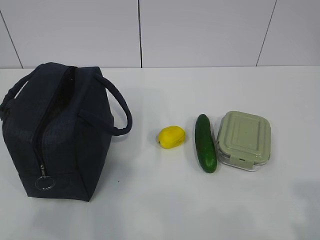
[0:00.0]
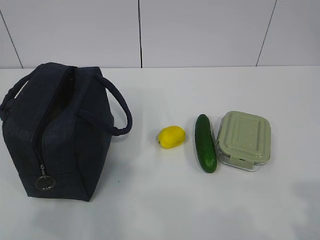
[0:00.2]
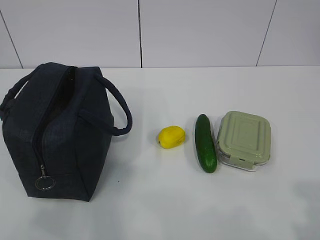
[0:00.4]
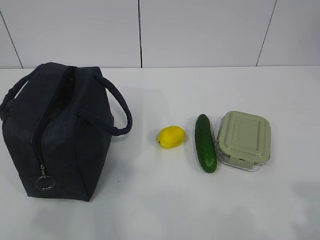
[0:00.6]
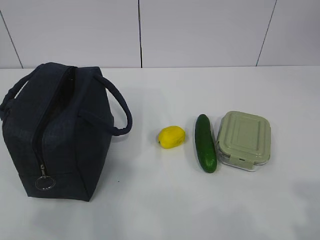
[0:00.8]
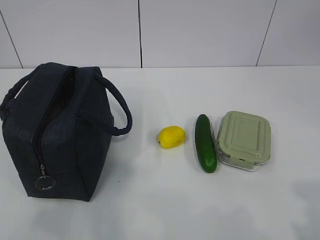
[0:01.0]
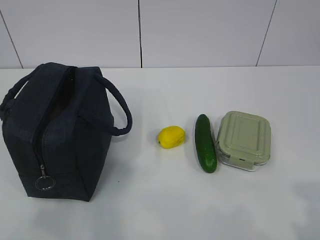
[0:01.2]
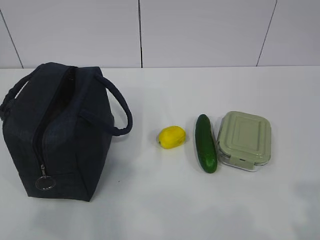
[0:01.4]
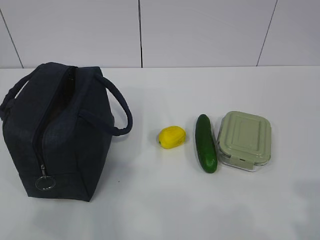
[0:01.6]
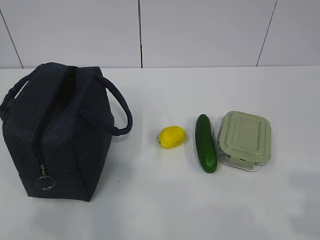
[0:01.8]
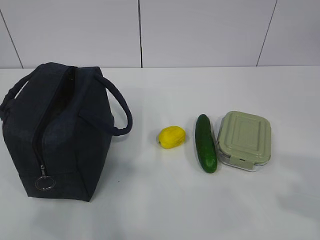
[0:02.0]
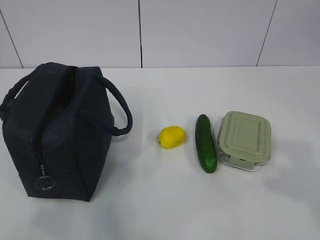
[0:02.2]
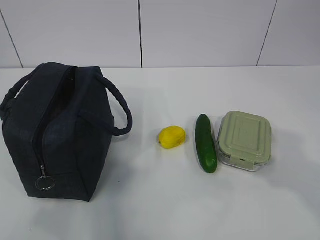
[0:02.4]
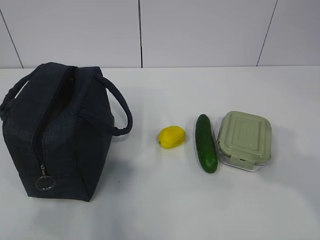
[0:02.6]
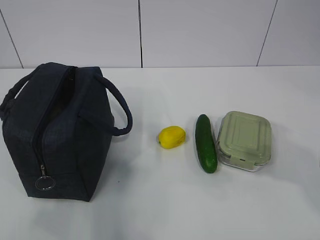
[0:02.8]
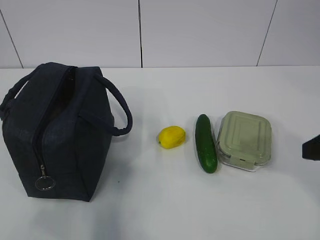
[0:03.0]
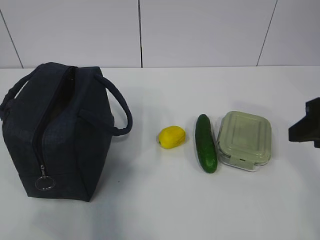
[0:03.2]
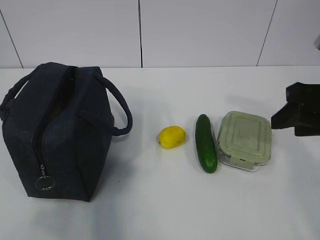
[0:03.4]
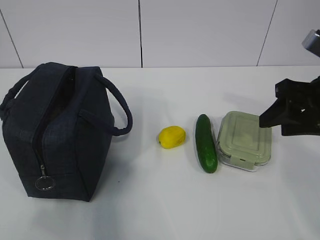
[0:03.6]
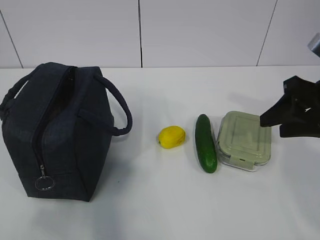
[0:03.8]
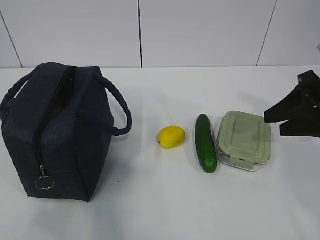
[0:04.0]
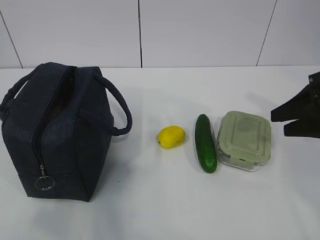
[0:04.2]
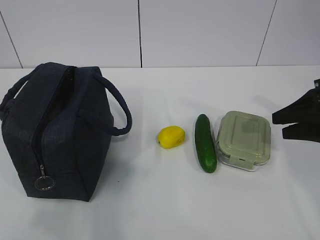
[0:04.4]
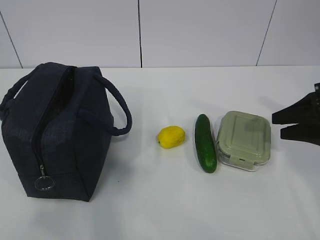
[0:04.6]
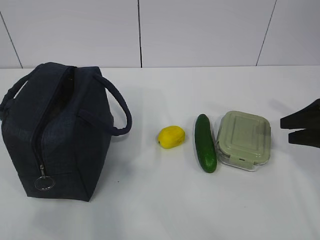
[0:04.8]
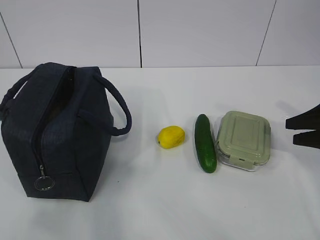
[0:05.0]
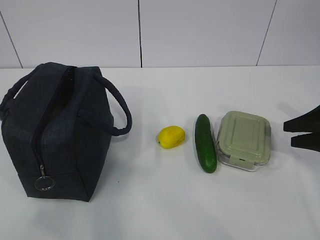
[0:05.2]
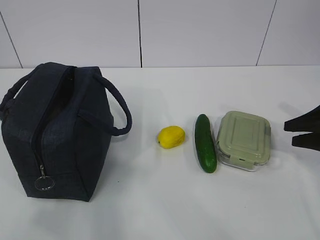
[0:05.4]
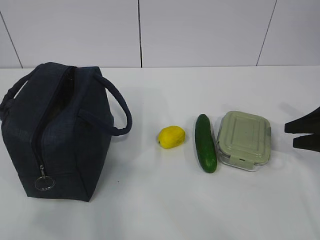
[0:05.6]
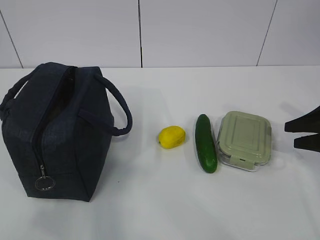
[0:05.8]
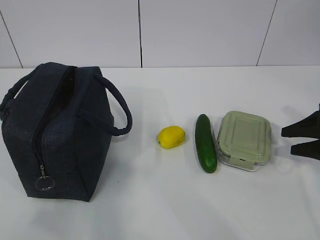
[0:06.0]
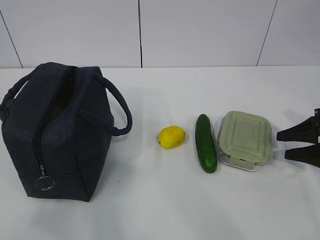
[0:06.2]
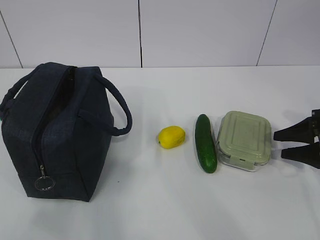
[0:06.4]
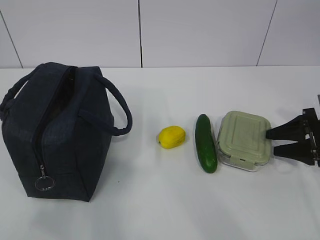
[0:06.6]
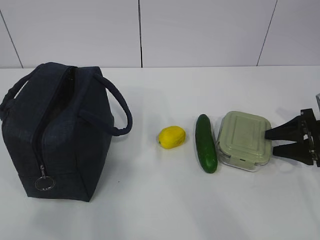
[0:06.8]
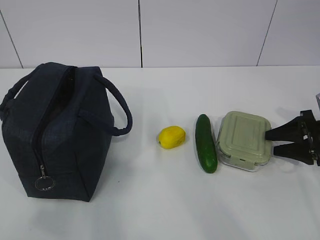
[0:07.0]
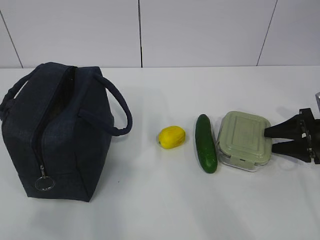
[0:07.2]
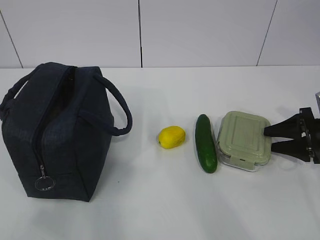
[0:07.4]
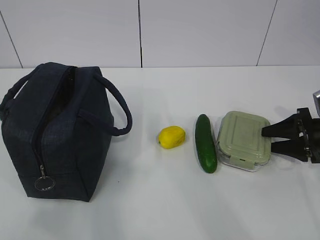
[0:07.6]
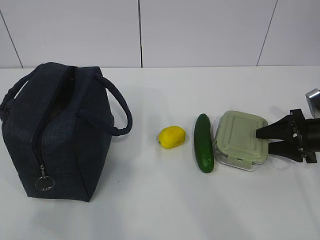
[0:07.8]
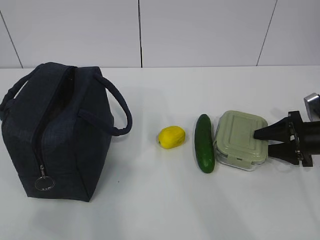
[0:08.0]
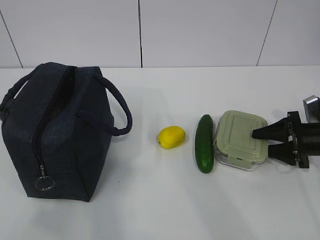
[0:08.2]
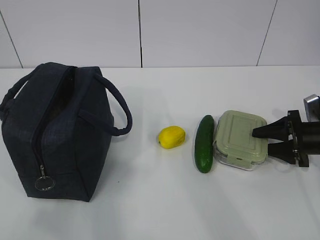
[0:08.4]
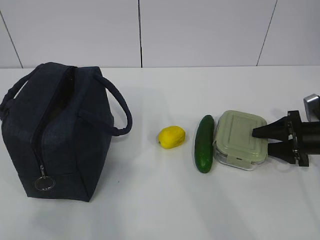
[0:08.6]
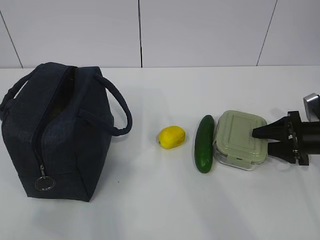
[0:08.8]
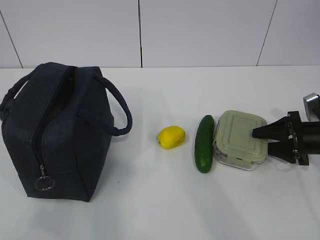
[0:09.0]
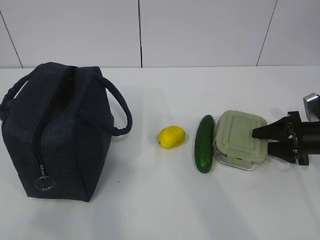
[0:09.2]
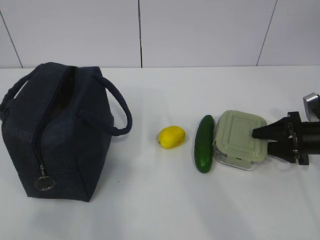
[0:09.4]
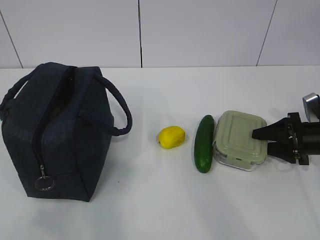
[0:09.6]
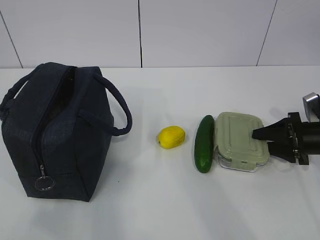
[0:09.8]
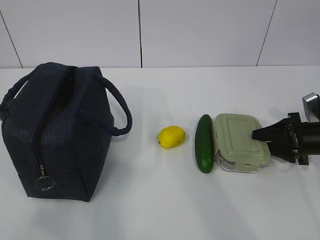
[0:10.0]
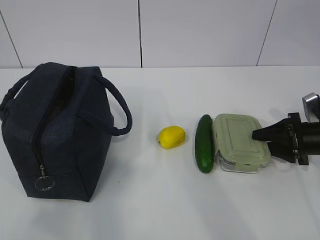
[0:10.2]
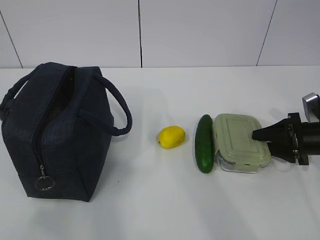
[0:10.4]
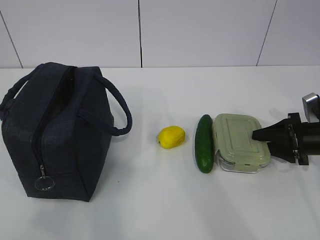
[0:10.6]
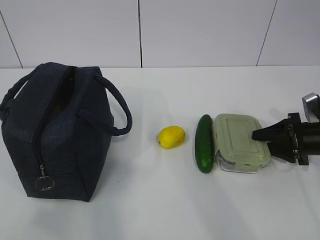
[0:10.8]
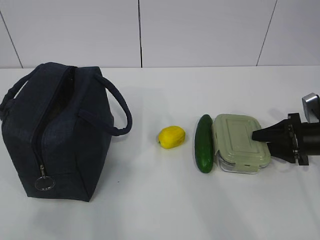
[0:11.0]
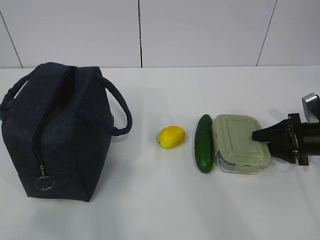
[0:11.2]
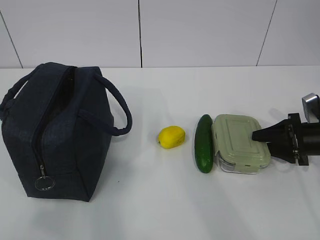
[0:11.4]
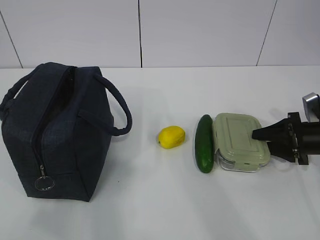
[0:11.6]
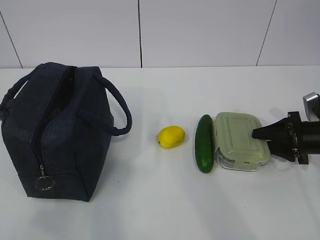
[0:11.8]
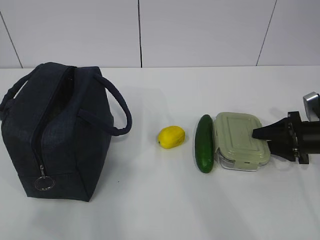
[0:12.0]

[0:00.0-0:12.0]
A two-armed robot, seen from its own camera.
Step, 0:00.0 to 0:11.0: Grab the lunch box with your right hand.
0:01.6 to 0:03.0: The right gripper shifts approximately 20 cm forward.
0:03.0 to 0:04.4: The right gripper heads forward, to the right and downward, covering about 15 cm.
0:04.4 to 0:06.0: The right gripper is displaced downward and to the right by some 10 cm.
0:06.0 to 0:07.6: The right gripper moves approximately 5 cm.
0:07.6 to 0:09.0: There are only small adjustments of the grippers.
0:09.0 to 0:12.0: Both grippers stay about where they are.

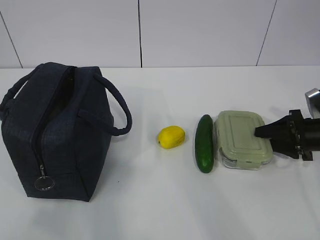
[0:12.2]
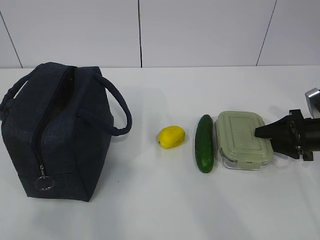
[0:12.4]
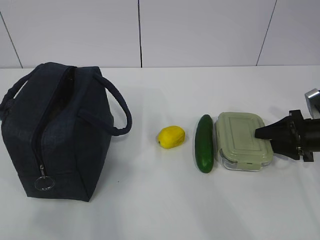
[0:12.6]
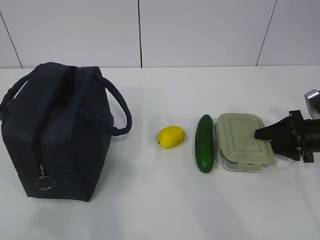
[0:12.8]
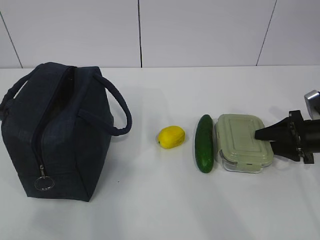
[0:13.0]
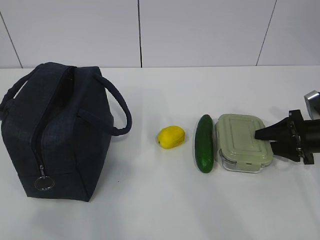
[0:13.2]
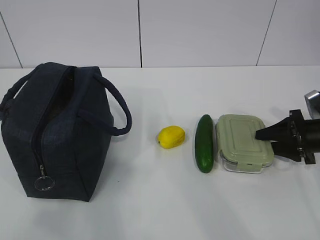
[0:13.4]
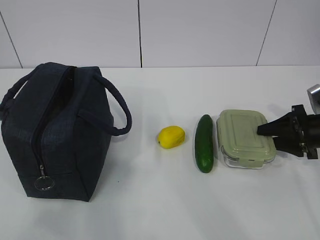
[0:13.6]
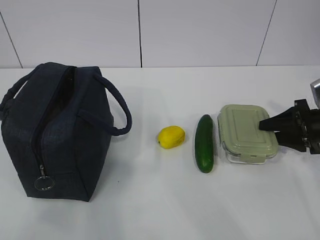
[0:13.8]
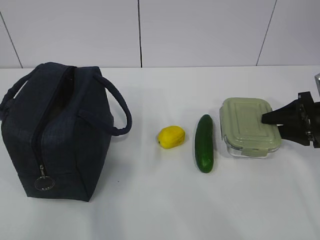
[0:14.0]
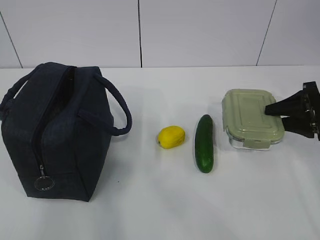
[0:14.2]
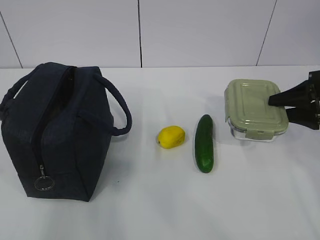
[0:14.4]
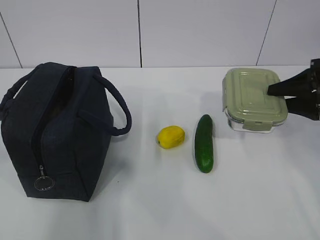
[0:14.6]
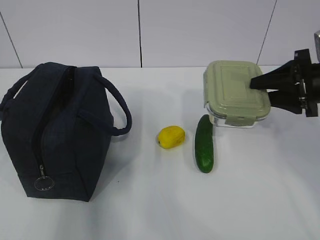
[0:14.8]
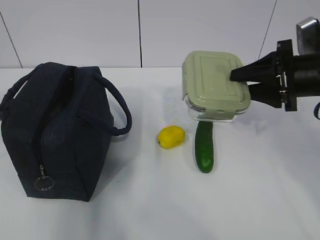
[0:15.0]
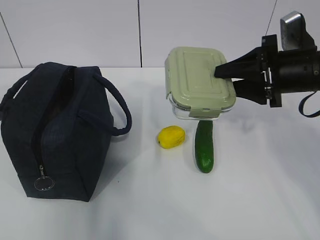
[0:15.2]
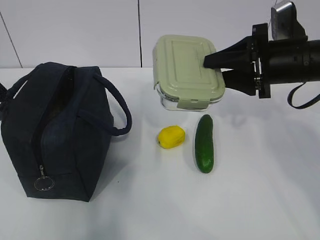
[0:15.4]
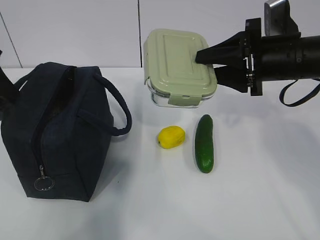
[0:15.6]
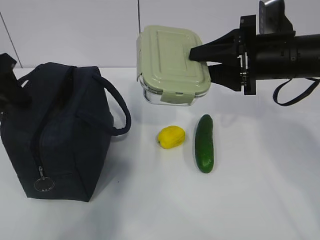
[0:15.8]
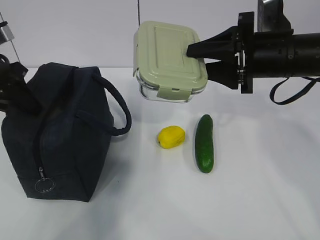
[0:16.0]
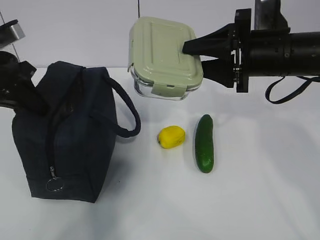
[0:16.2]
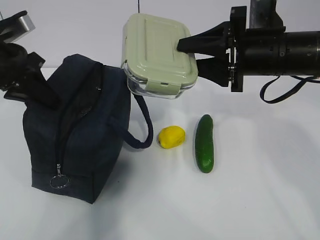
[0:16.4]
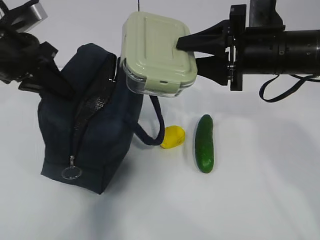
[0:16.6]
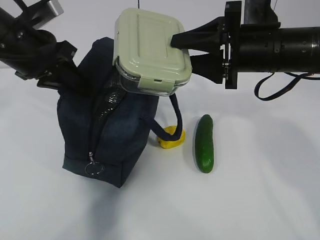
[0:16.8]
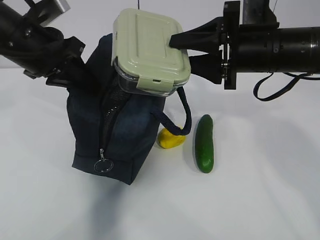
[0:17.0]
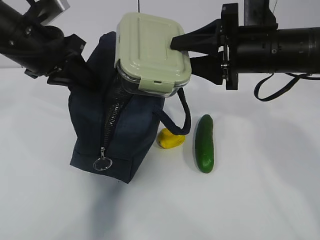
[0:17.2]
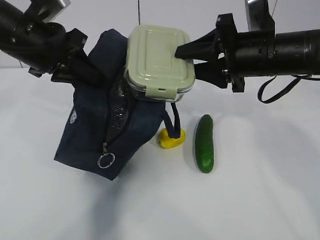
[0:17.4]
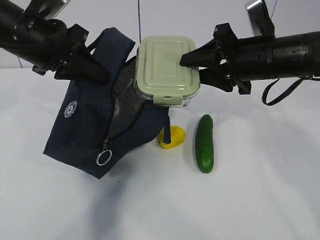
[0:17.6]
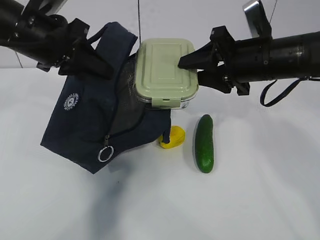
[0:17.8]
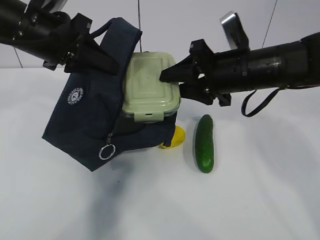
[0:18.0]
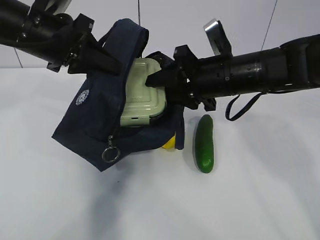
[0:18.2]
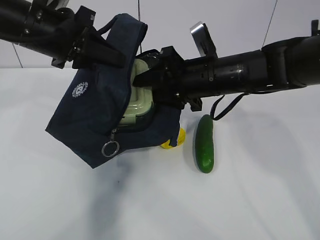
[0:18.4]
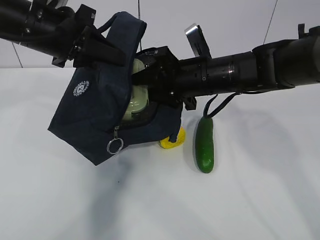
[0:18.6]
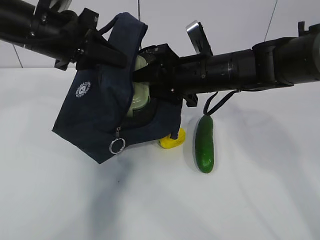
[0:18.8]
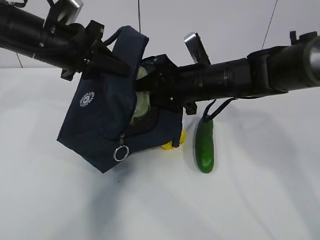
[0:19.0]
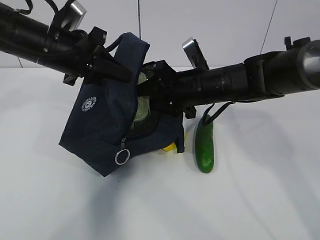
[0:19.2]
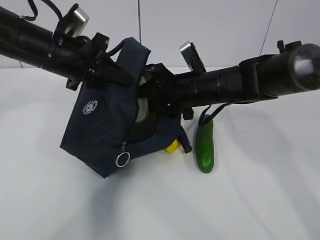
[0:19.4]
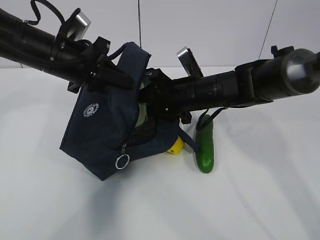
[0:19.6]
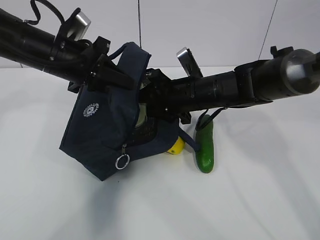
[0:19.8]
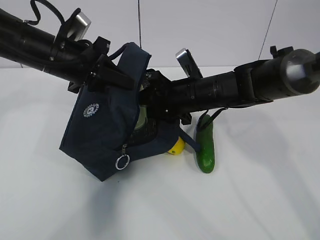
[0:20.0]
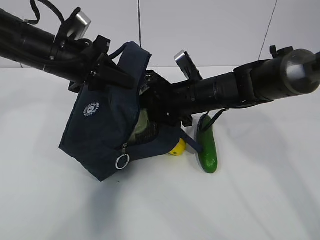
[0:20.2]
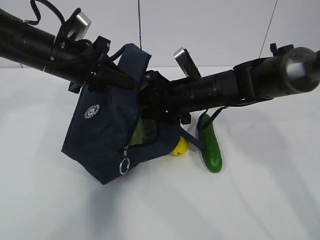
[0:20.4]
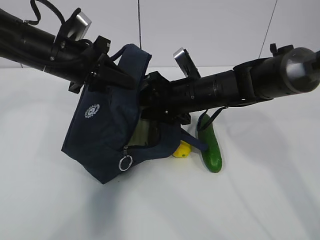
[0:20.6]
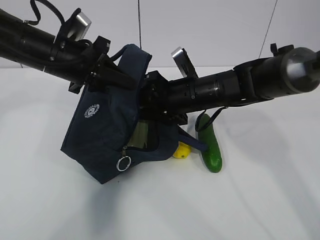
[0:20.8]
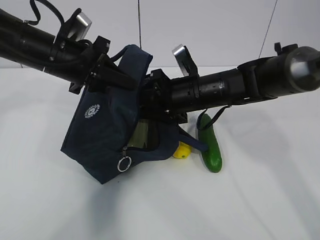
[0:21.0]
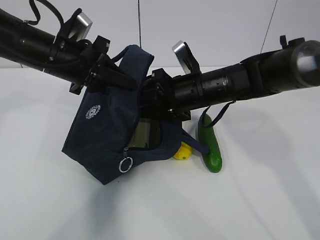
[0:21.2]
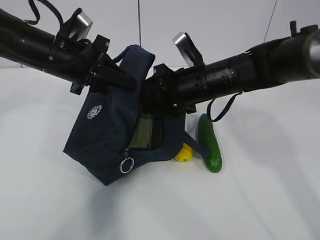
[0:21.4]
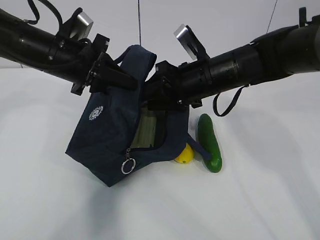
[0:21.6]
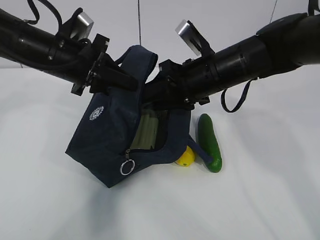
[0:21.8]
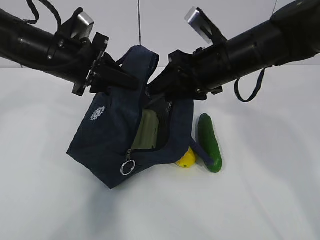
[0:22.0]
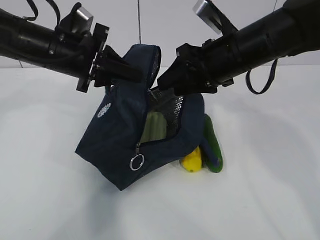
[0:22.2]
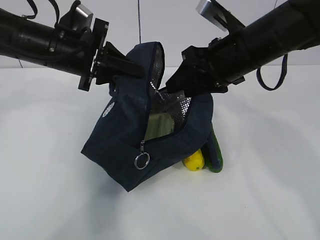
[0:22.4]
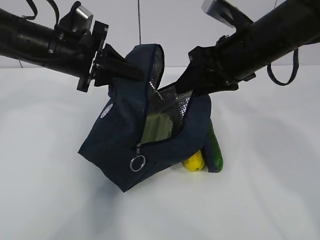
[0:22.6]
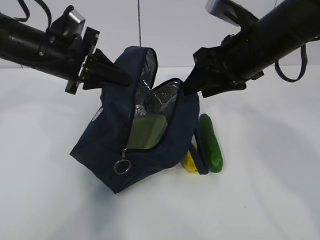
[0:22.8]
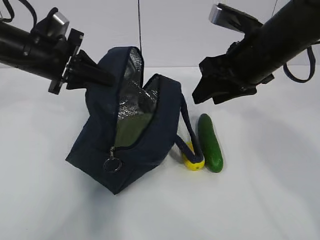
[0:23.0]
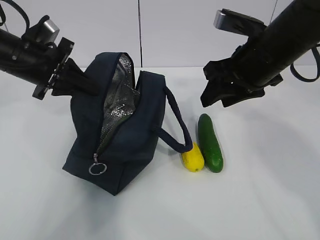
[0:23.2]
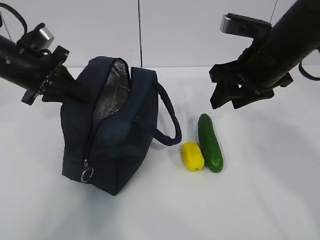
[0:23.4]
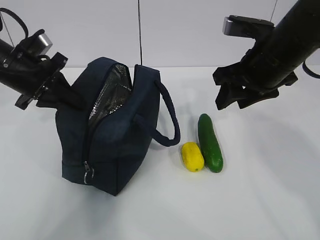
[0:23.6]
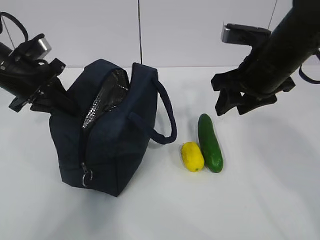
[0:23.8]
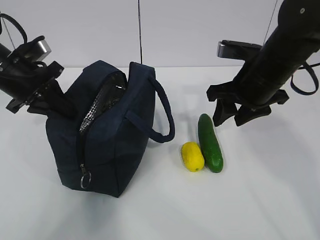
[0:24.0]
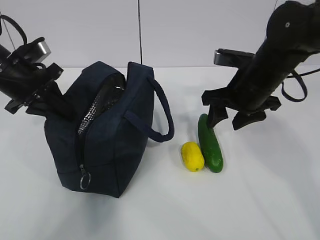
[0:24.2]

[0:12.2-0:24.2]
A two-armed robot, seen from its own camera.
Step, 0:12.2 to 0:14.0: Grab the lunch bag with your left hand.
Step, 0:14.2 to 0:17.2: Place it into the bag with your right hand.
Step, 0:17.4 to 0:21.4: Grab the cucumber with your right hand.
Step, 0:21.8 to 0:23.8: Place it into the bag with your right hand.
0:12.2 to 0:13.8: The grippers move only a little.
0:13.8 to 0:15.2: The right gripper moves upward and to the left, approximately 15 cm; the left gripper heads forward, covering roughly 25 cm.
0:15.2 to 0:16.6: The right gripper travels to the left by about 5 cm. Meanwhile the left gripper goes roughly 10 cm forward and to the right, and closes its fingers.
0:16.6 to 0:18.2: The right gripper shifts about 5 cm to the left, while the left gripper goes approximately 5 cm to the right.
0:18.2 to 0:19.8: The two grippers go approximately 5 cm downward.
0:19.8 to 0:21.2: The grippers move only a little.
0:21.2 to 0:22.6: The right gripper heads upward and to the right, covering approximately 10 cm.
0:22.6 to 0:24.2: The left gripper goes roughly 10 cm to the left. The right gripper heads downward, covering about 5 cm.
